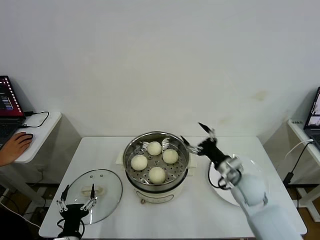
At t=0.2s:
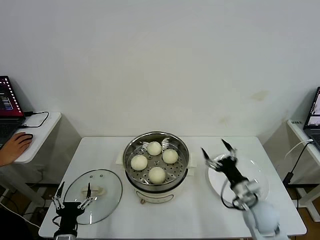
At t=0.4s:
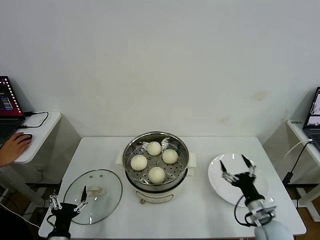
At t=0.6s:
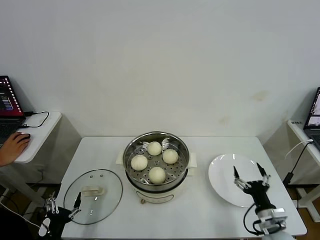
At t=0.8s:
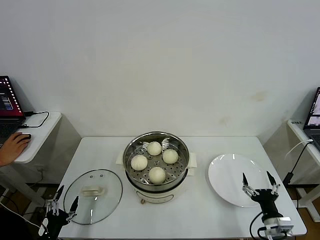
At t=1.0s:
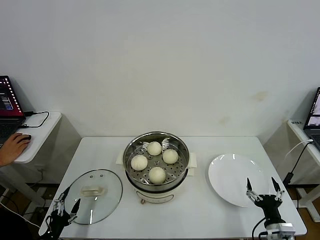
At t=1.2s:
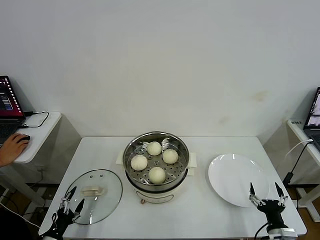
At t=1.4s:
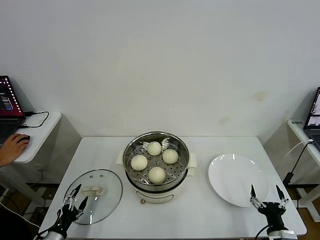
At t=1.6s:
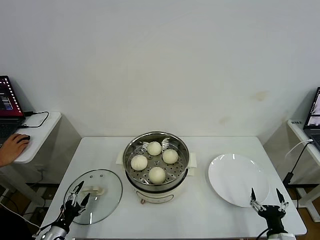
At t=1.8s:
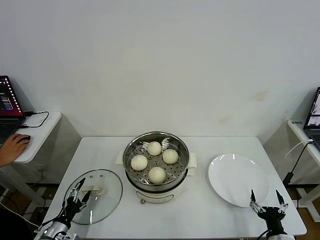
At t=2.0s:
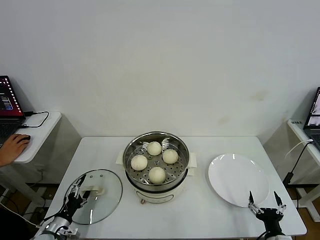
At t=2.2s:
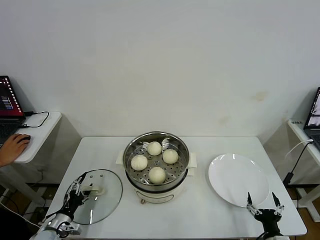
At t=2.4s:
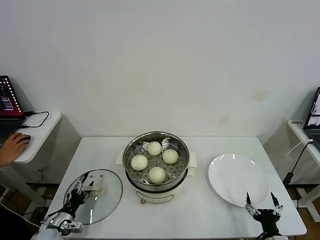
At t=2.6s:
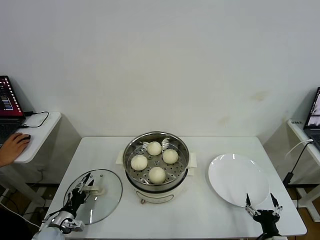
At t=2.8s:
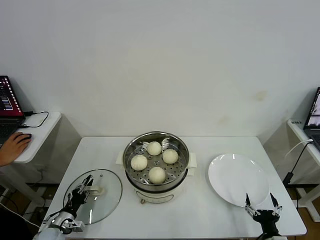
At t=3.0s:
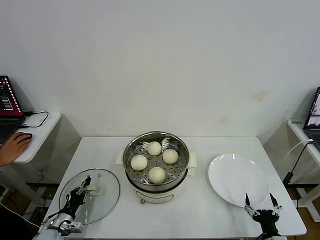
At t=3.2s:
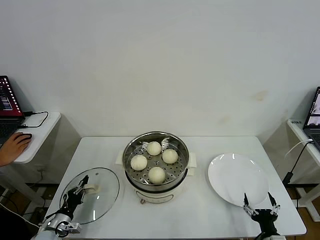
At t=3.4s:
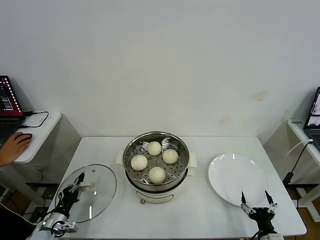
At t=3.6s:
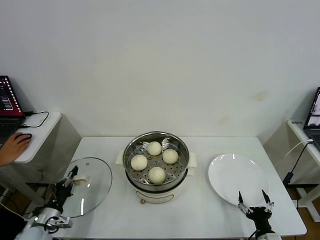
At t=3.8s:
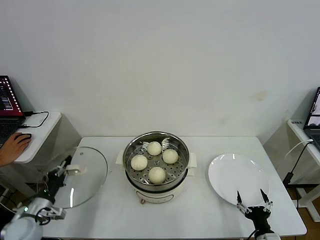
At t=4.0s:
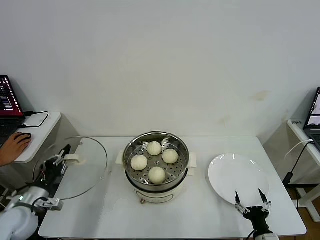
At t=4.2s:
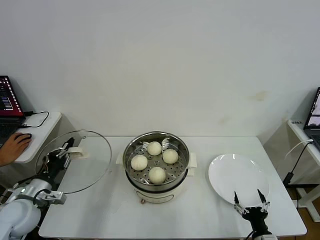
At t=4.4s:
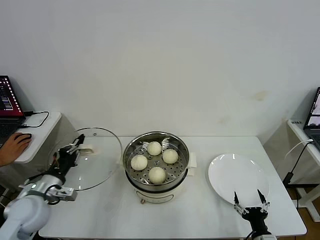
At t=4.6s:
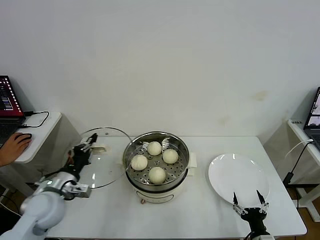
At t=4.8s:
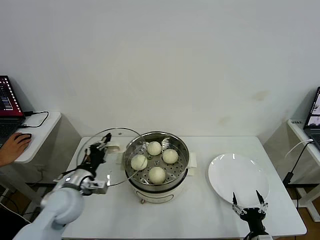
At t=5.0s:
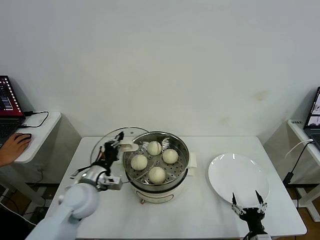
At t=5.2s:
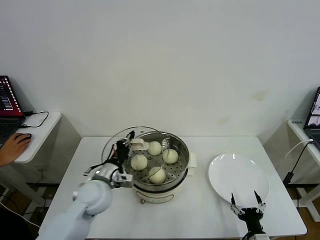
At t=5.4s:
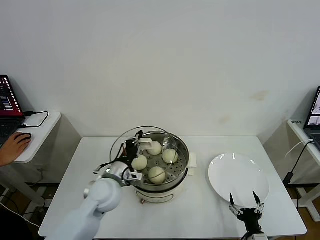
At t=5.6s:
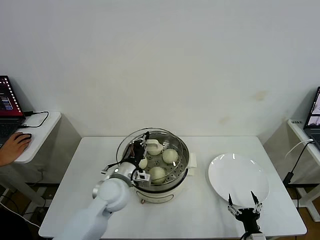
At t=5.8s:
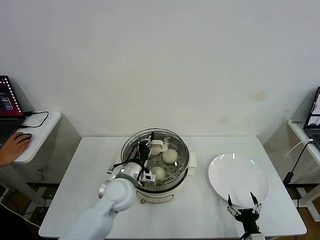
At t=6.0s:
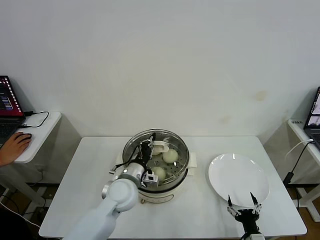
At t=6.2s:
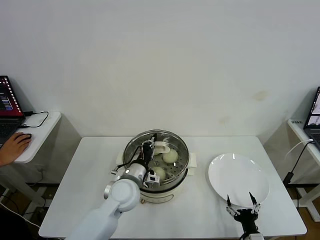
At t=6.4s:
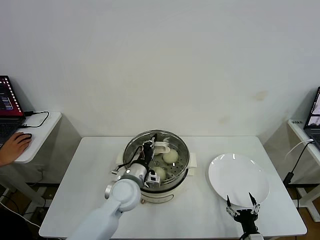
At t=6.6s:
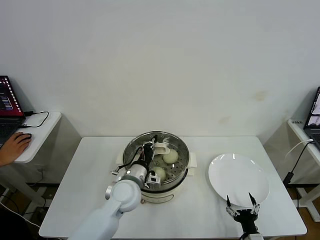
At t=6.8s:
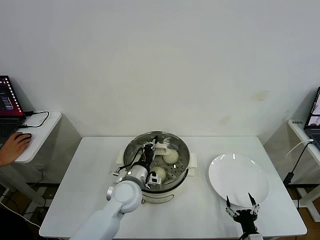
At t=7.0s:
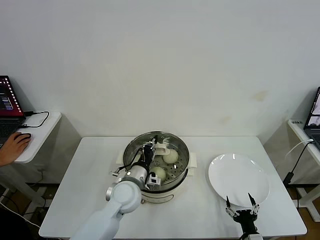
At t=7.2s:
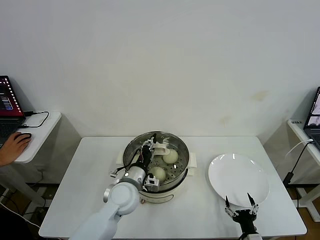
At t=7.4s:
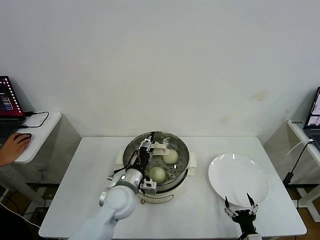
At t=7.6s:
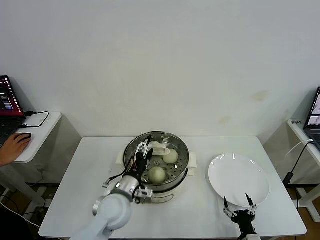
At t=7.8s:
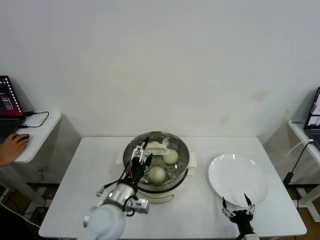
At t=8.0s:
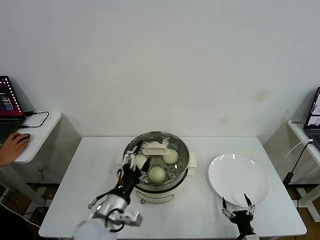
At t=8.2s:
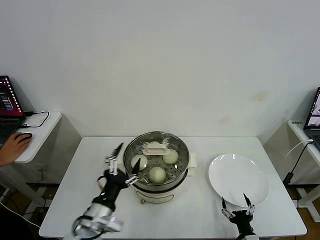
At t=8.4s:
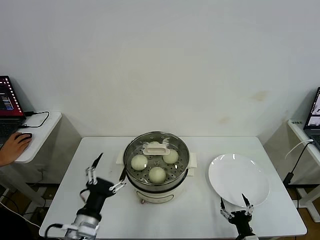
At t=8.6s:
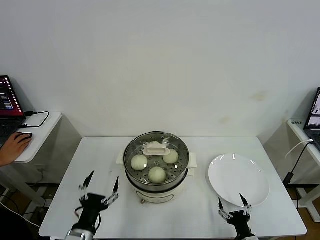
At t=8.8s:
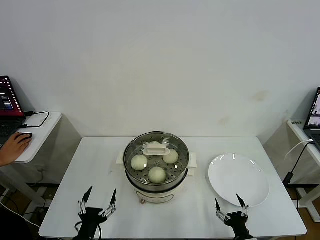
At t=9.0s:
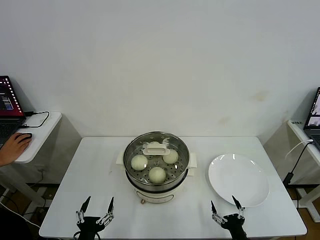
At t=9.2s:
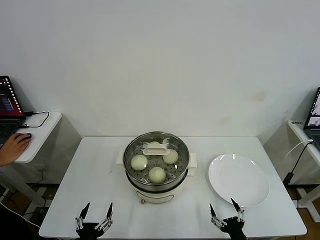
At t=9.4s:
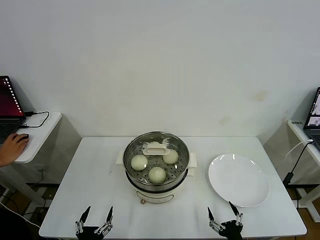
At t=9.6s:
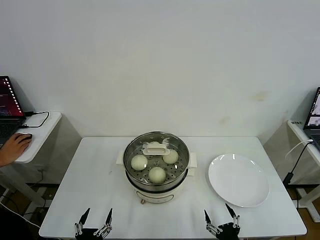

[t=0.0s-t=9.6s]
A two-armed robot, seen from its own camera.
Task of the whole recording: take steamed baozi put them in steamer then cover it.
Step, t=0.0s to t=3.4s: Grasp the pot lid with left gripper.
Step, t=3.6s to t=7.6s: Place the pot lid on the steamer with left gripper.
t=0.0s to t=1.6s: The right gripper shifts roughly 25 cm backward, downward and to the right, while the left gripper is displaced to the left and downward by roughly 15 cm.
t=1.6s to t=3.2s: The left gripper moves forward, roughly 5 cm, and closes up.
t=3.2s to t=4.8s: The left gripper moves upward and to the right, roughly 25 cm.
t=4.8s to t=6.4s: The left gripper moves to the right, approximately 15 cm.
t=6.4s to t=8.0s: The left gripper heads backward, covering about 10 cm, and opens up.
t=8.0s to t=9.6s: The right gripper goes some 5 cm backward. Meanwhile the left gripper shifts roughly 25 cm backward, downward and to the left.

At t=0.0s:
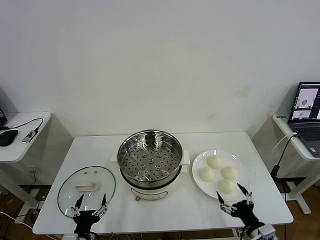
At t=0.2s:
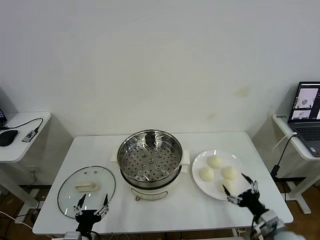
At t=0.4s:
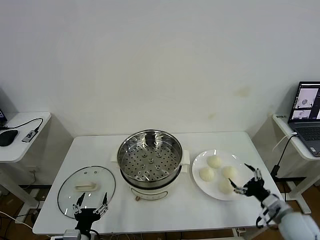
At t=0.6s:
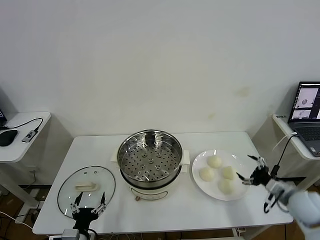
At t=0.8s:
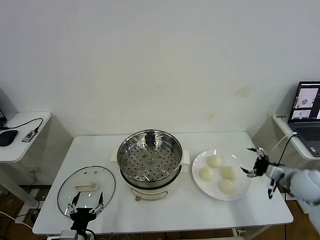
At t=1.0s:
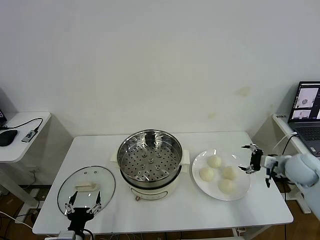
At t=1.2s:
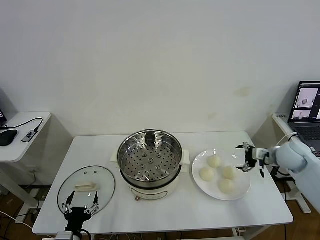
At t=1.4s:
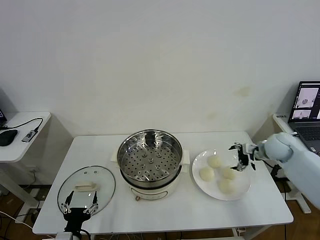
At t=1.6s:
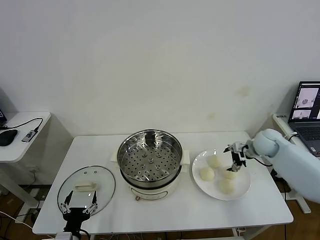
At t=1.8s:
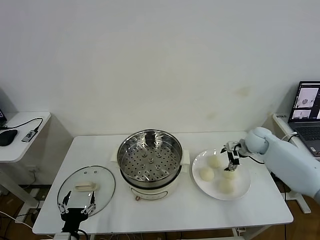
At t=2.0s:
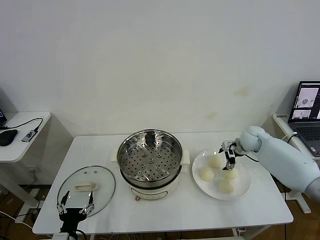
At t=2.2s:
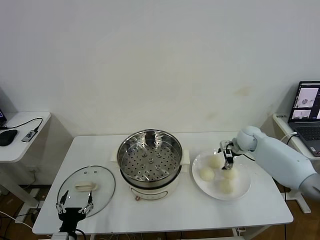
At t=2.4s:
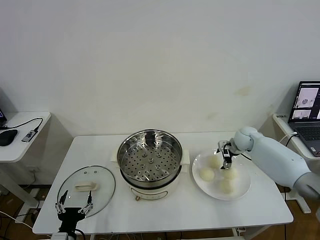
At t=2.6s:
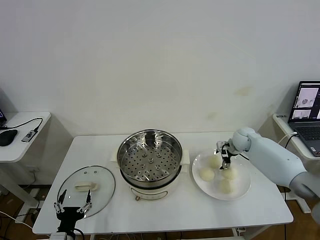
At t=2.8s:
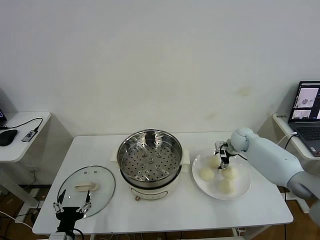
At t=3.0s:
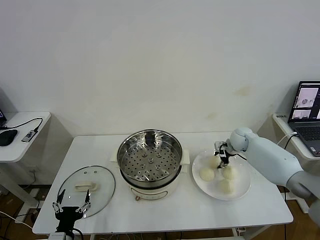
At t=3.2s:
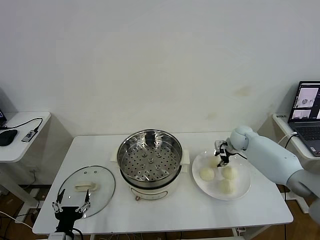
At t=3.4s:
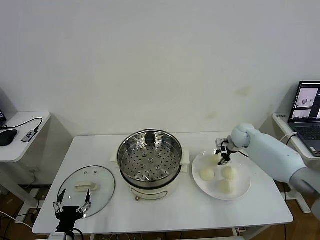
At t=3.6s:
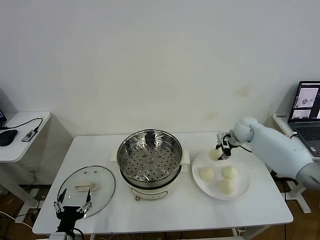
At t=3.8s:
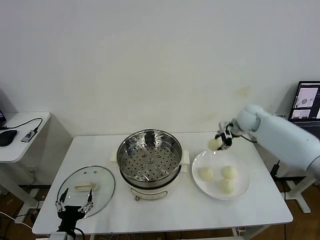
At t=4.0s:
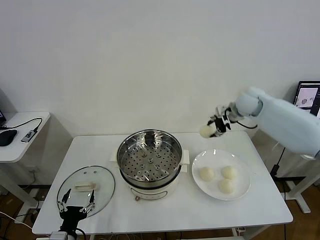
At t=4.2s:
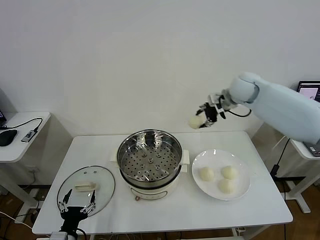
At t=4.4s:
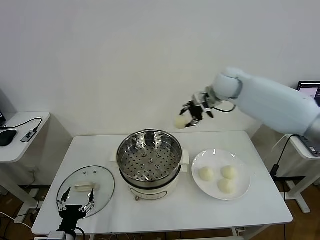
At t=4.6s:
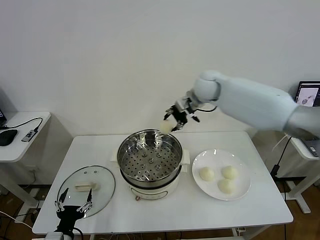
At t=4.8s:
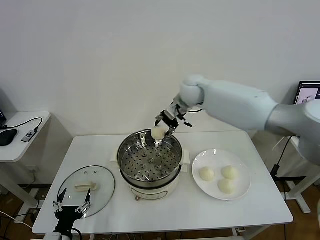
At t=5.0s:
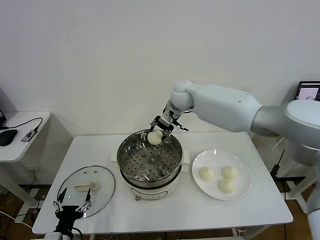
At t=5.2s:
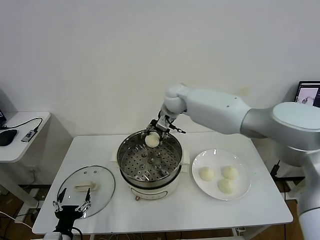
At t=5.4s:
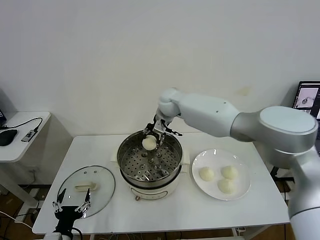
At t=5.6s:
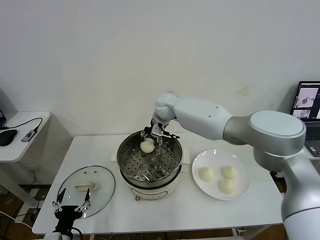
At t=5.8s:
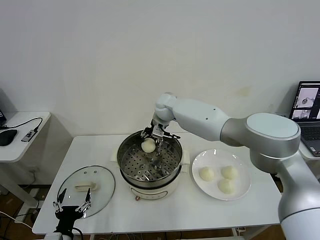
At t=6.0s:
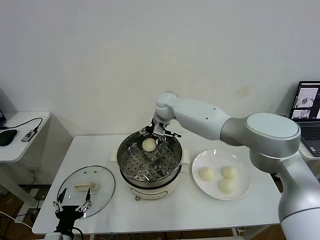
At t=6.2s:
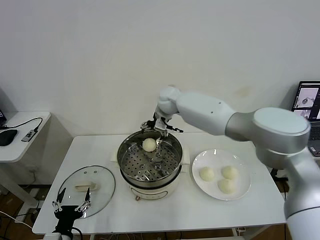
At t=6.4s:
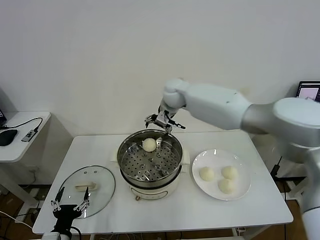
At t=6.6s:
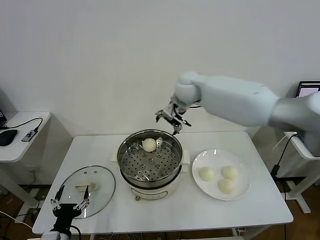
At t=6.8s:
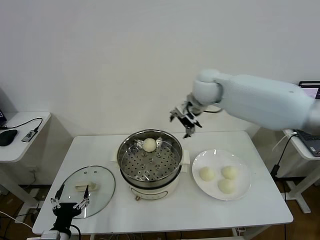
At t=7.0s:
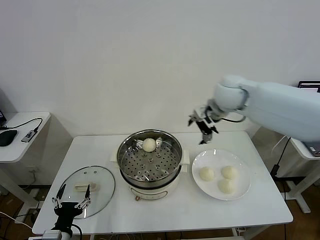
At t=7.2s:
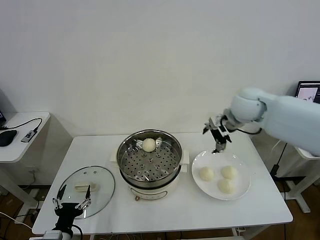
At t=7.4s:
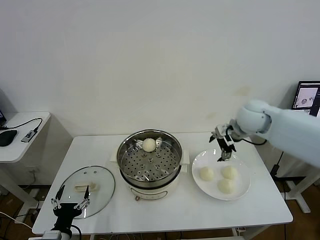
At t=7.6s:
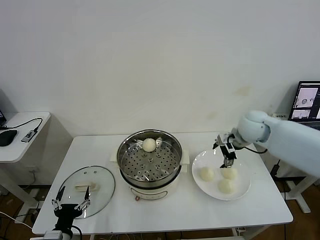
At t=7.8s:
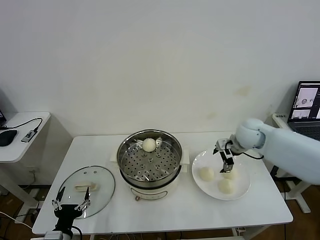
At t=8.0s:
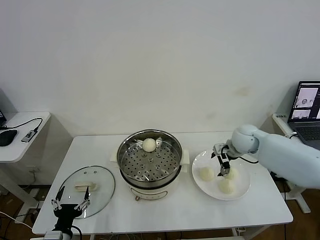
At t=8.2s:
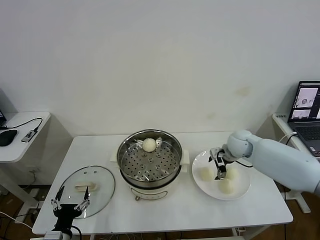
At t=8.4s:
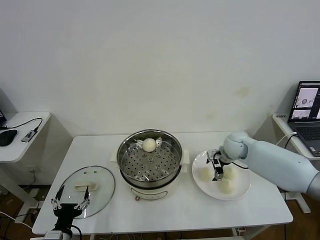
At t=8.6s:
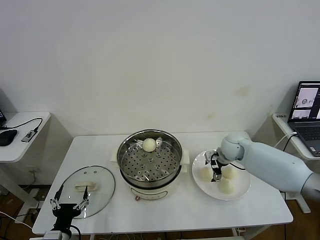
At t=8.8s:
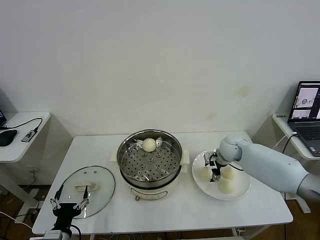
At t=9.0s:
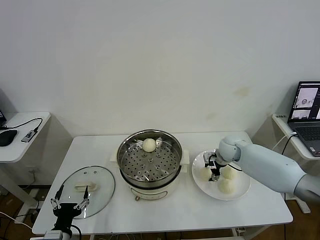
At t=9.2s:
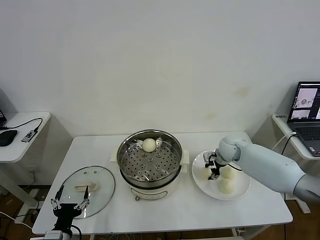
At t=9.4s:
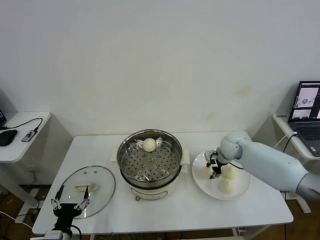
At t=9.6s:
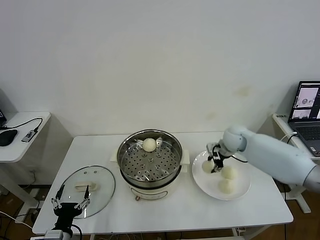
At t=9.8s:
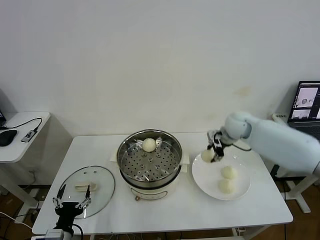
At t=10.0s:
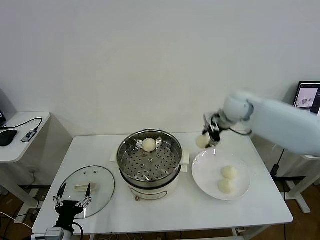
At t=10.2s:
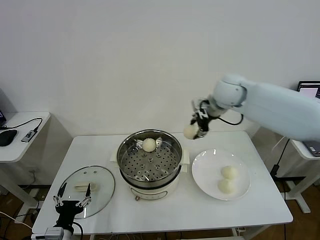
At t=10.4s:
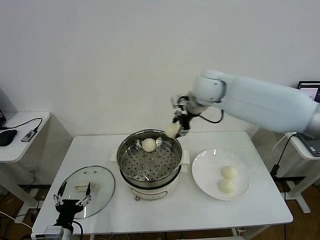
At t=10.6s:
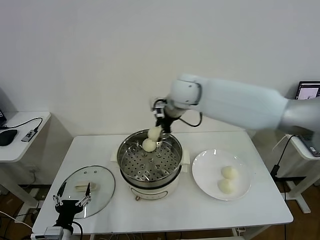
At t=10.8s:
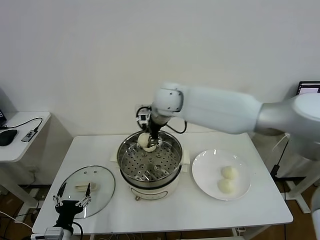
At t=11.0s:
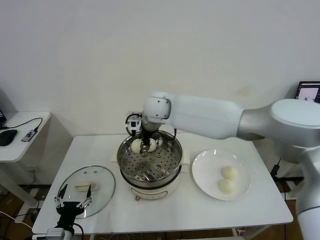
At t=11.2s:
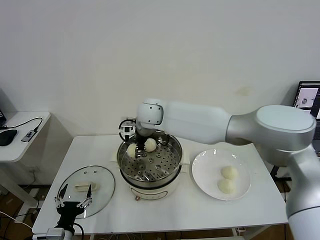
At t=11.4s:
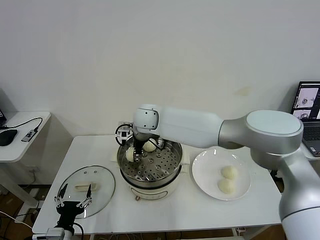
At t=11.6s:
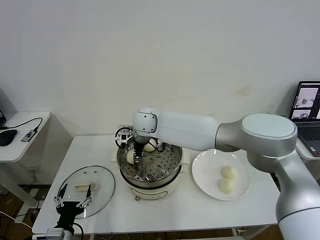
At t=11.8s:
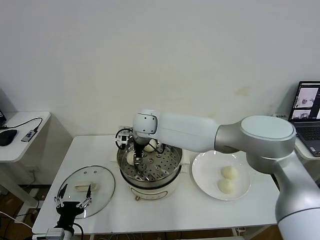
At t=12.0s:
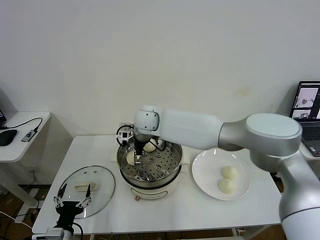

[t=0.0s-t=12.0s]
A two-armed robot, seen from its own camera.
Task of the whole recording: take steamed baozi put them in steamer then cover it.
Step, t=0.0s to t=3.2s: Grasp the baozi in the plate with right gripper.
Step, t=3.4s to t=6.0s: Place the baozi on the steamer with right gripper.
Step, t=6.2s to t=9.4s: Grasp the baozi in the plate with right gripper.
t=1.6s to t=3.0s: The right gripper goes roughly 5 cm forward, and closes up.
t=3.0s to t=4.4s: The right gripper travels upward and to the left by approximately 30 cm.
t=4.4s to t=6.0s: The right gripper travels to the left and downward by roughly 15 cm, and opens up.
t=6.0s to t=7.6s: The right gripper moves to the right and backward, some 30 cm.
t=7.6s to t=9.0s: The right gripper travels downward by roughly 10 cm, and closes up.
t=9.0s to t=10.4s: The right gripper moves upward and to the left, some 30 cm.
t=10.4s to t=12.0s: The right gripper goes about 15 cm to the left and downward, and opens up.
